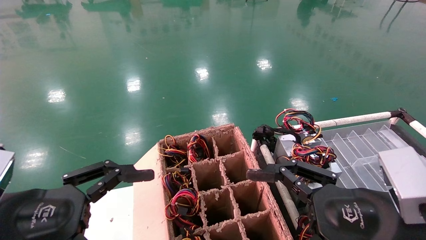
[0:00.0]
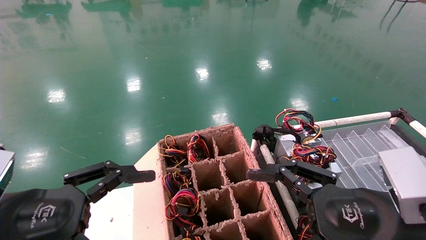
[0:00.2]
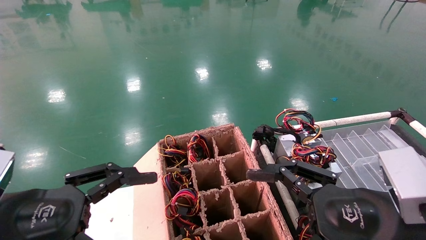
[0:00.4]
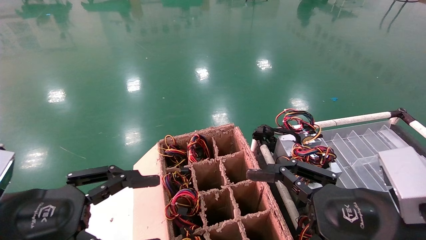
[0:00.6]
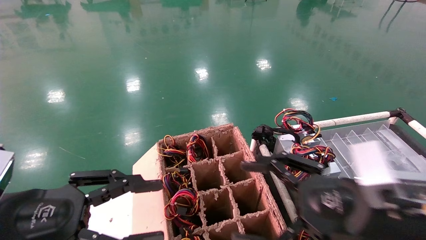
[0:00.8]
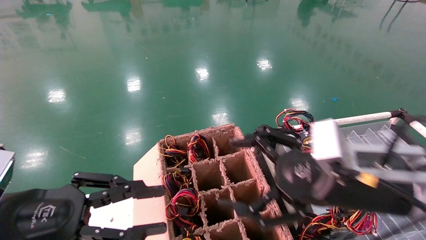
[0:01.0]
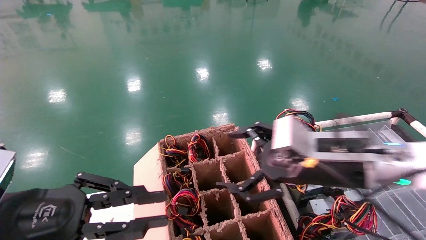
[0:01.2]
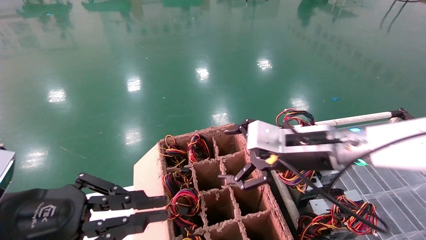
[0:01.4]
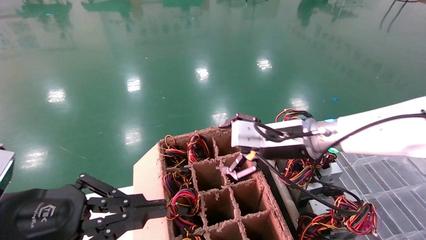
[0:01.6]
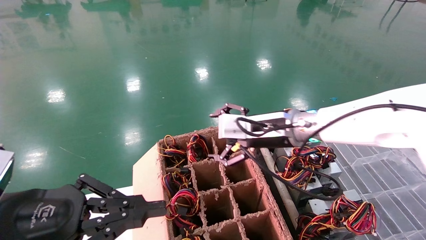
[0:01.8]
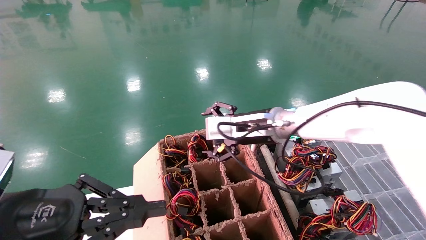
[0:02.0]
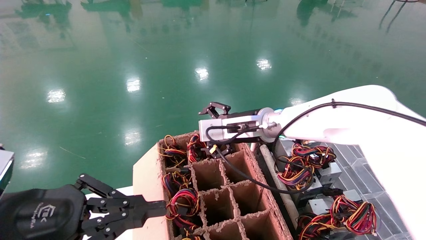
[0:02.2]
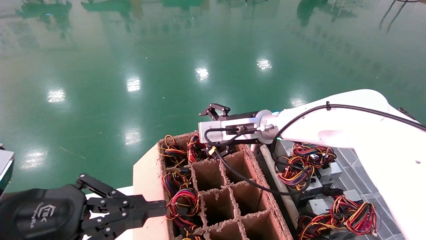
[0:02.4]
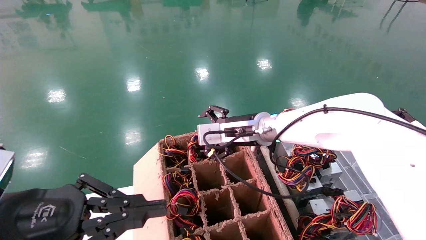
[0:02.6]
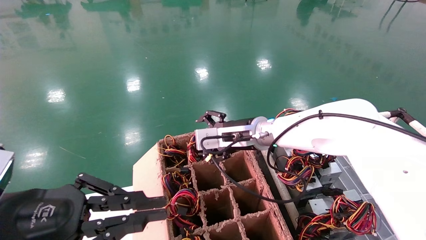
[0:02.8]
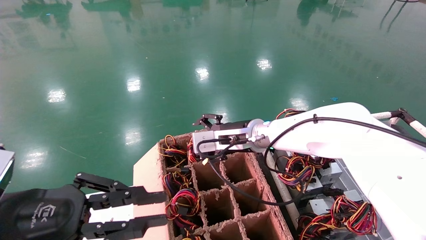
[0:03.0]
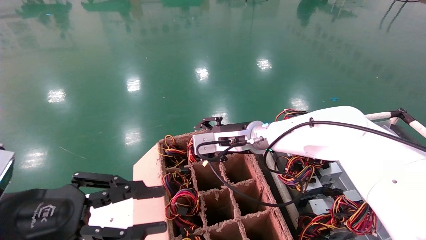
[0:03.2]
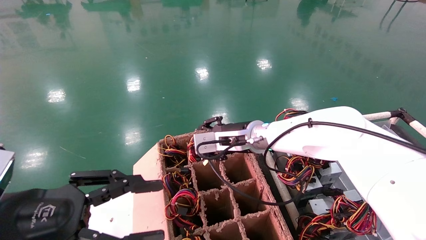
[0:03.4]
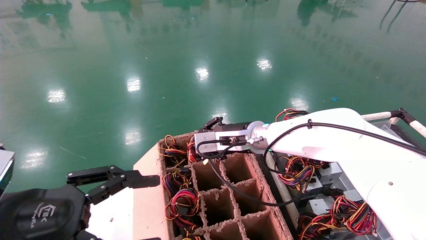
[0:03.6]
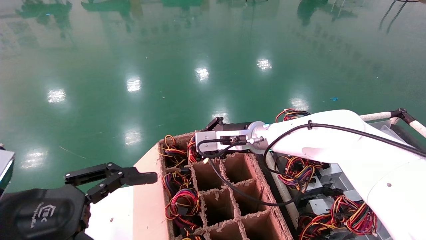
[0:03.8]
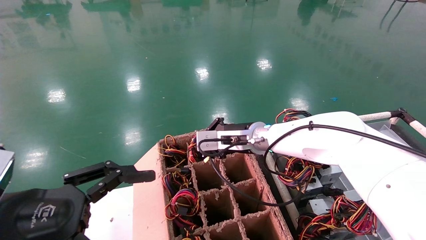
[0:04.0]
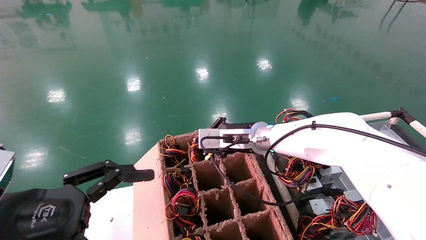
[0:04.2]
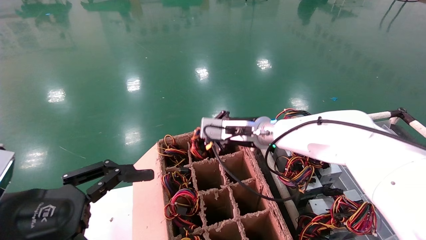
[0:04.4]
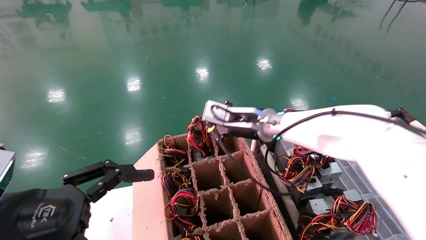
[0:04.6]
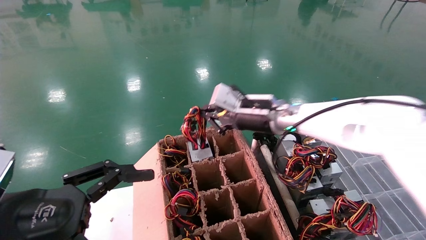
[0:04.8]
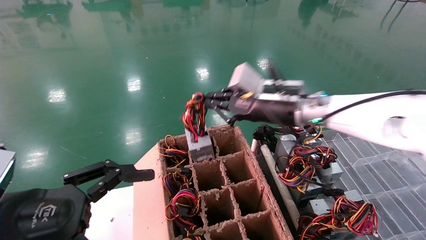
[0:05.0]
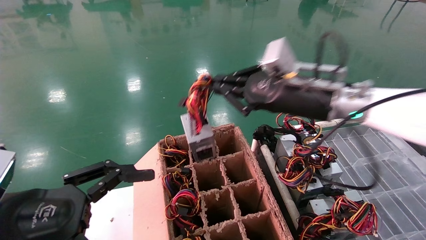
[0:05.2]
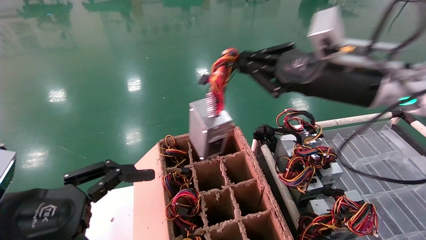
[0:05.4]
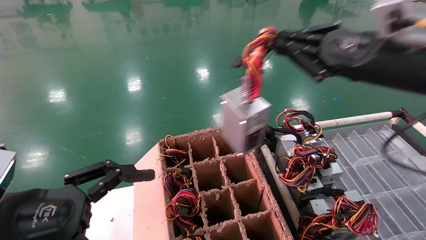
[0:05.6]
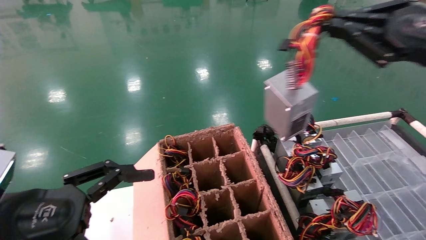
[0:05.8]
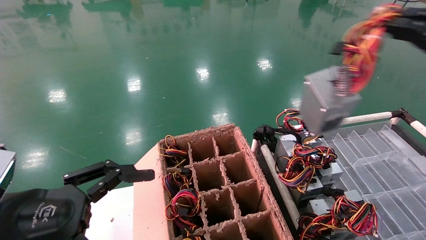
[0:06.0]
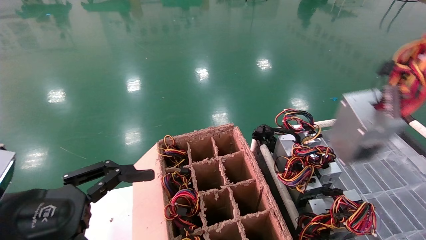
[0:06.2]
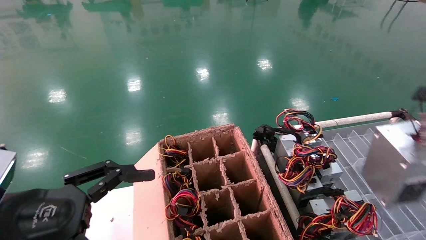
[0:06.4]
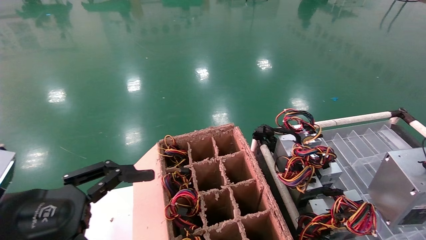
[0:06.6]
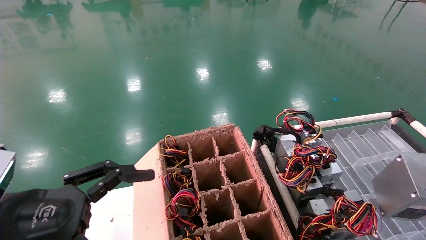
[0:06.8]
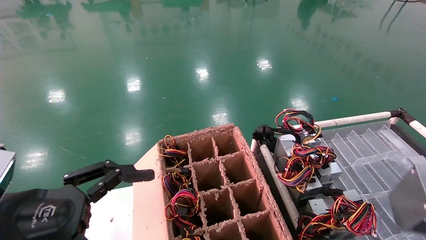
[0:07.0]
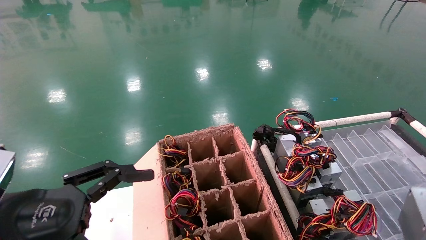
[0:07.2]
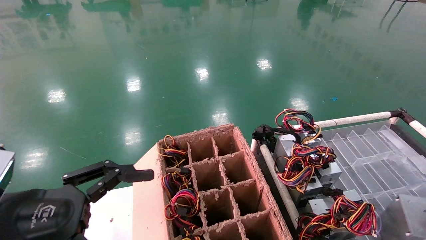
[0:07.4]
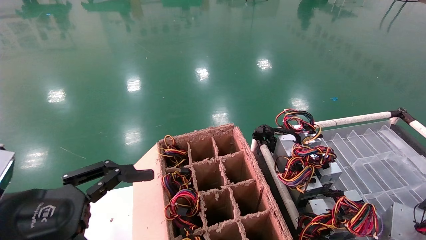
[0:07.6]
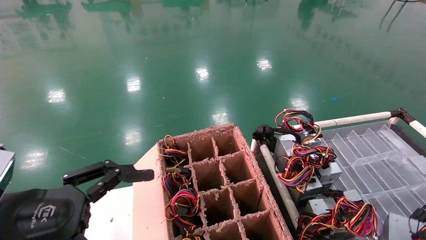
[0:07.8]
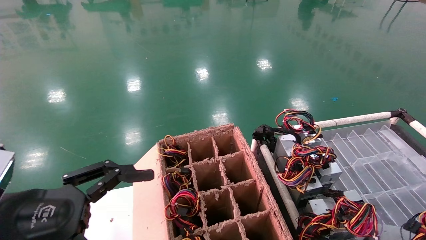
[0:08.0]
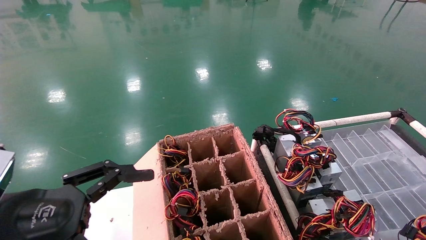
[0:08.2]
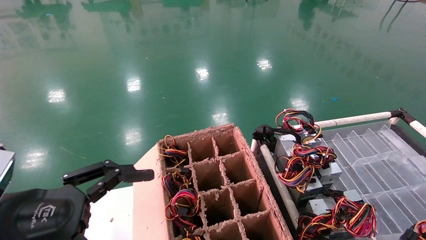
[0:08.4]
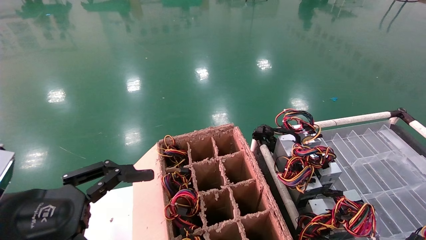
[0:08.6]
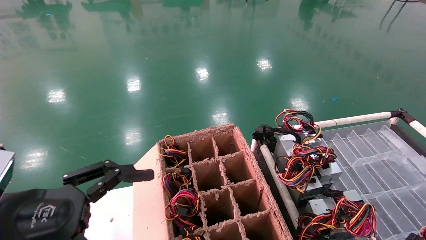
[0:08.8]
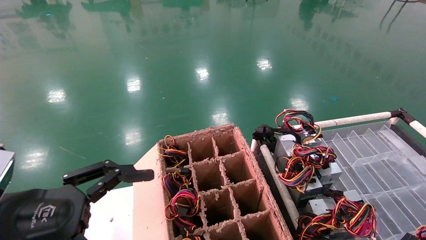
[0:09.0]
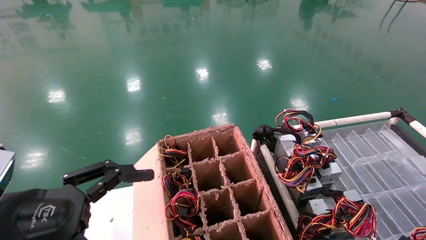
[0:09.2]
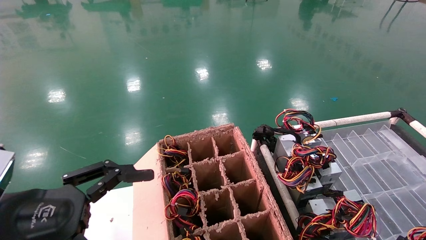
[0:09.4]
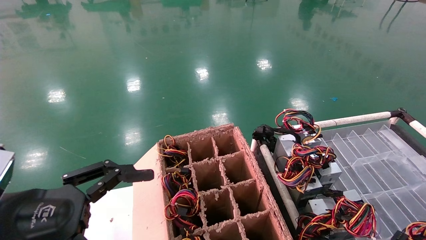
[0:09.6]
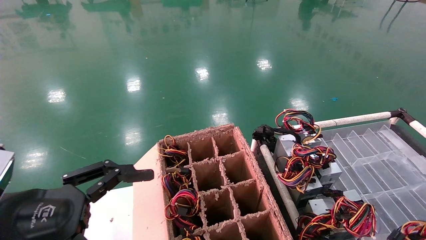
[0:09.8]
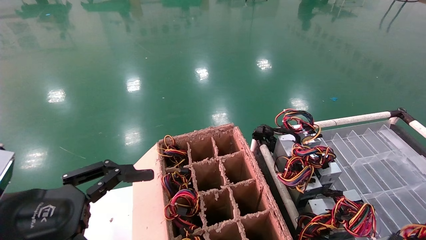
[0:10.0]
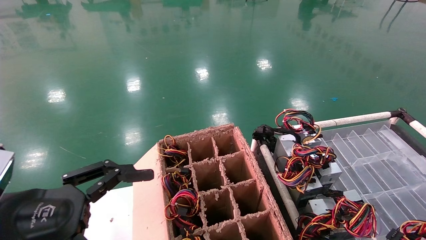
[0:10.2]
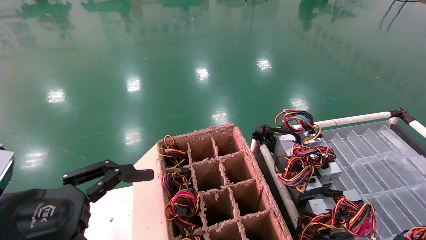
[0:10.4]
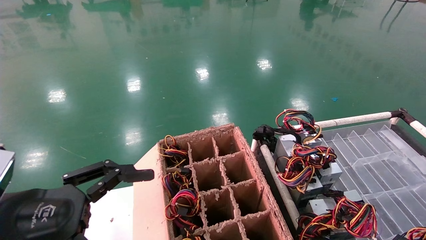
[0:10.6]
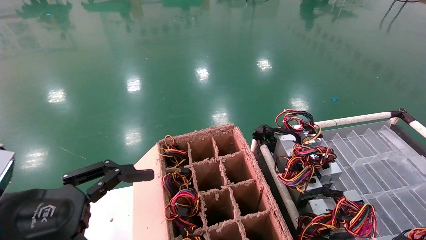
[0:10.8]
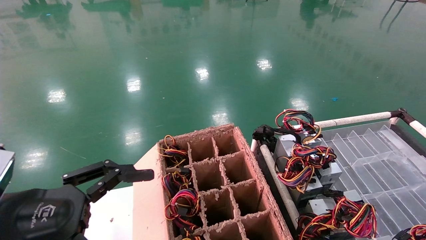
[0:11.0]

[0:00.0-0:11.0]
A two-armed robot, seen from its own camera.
Step, 0:00.8 to 0:04.4: Grab and lift the power supply from the large box.
0:00.0 to 0:01.6: The right gripper moves forward and to the left, some 20 cm. Meanwhile the left gripper closes its fingers.
0:01.6 to 0:03.2: The right gripper travels forward and to the left by roughly 10 cm.
0:03.2 to 0:04.8: The left gripper opens, while the right gripper shifts some 5 cm upward, and closes.
0:04.8 to 0:06.2: The right gripper moves to the right and backward, approximately 40 cm.
0:06.2 to 0:07.8: The right gripper goes roughly 20 cm downward.
0:07.8 to 0:09.4: The grippers move only a little.

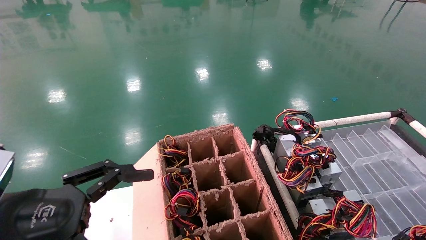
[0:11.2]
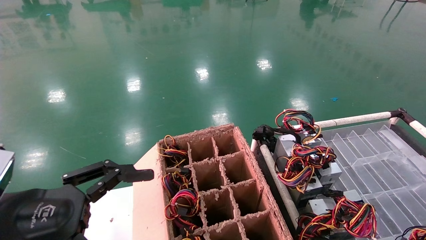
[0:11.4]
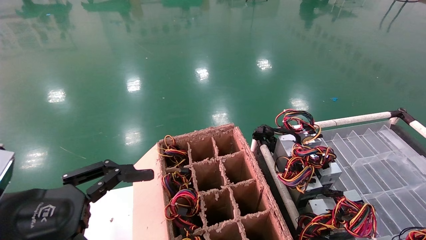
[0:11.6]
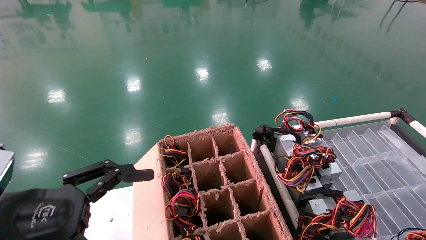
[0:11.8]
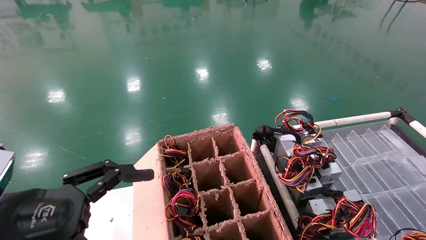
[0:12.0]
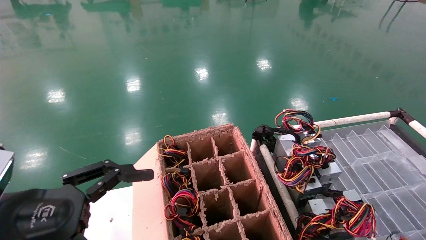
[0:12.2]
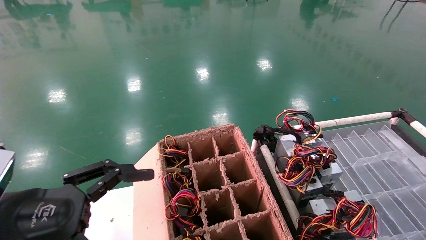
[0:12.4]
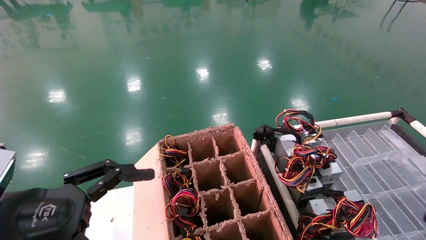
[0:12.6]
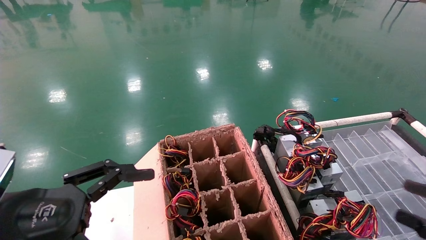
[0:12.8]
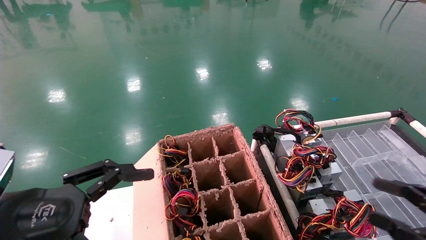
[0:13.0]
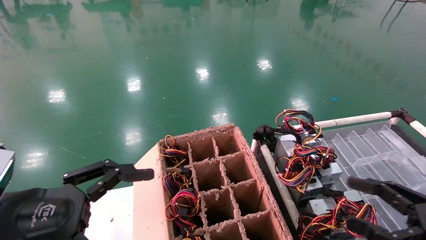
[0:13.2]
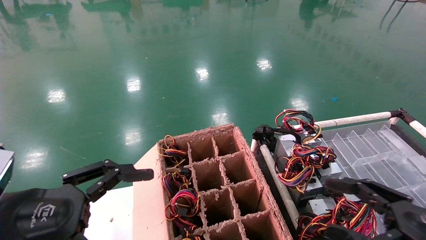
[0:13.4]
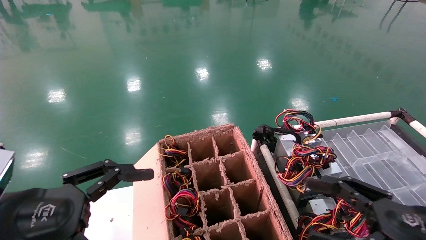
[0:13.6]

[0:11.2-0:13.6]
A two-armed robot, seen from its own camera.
0:12.4 to 0:13.6: The right gripper goes about 15 cm to the left.
